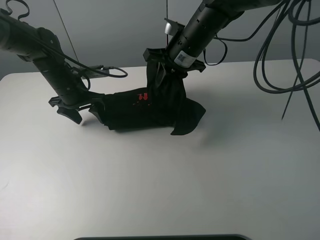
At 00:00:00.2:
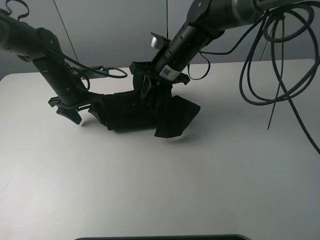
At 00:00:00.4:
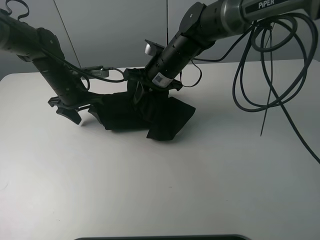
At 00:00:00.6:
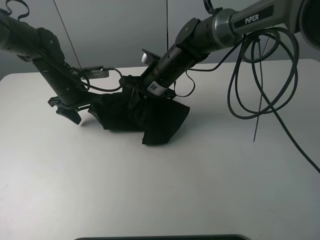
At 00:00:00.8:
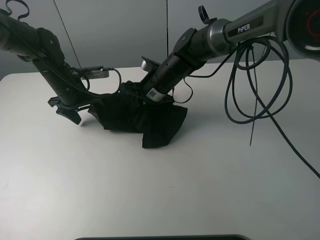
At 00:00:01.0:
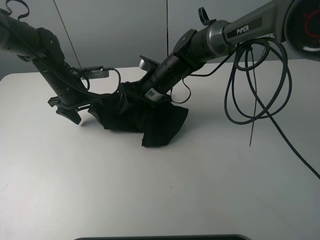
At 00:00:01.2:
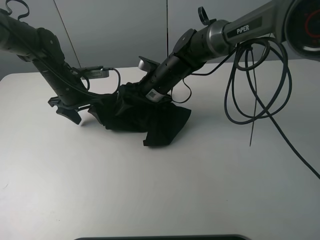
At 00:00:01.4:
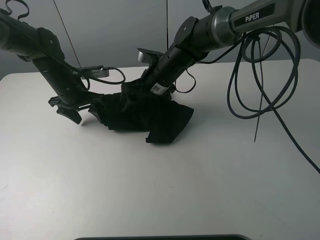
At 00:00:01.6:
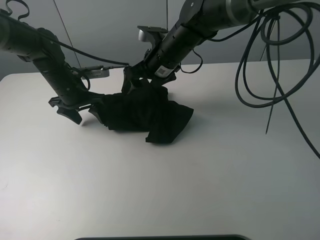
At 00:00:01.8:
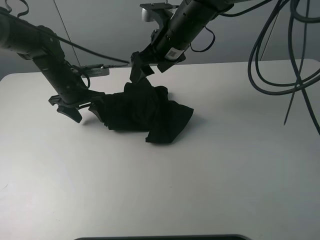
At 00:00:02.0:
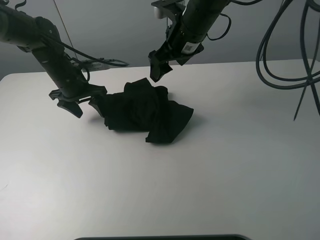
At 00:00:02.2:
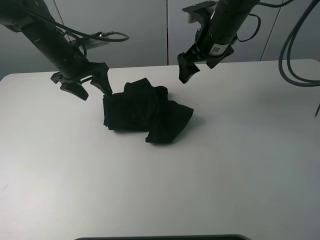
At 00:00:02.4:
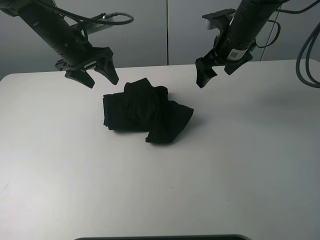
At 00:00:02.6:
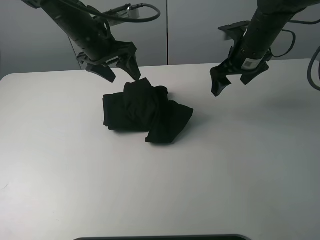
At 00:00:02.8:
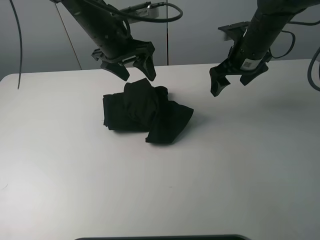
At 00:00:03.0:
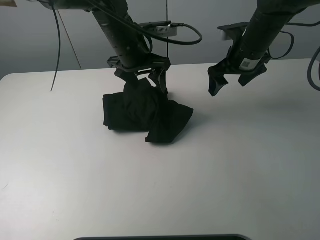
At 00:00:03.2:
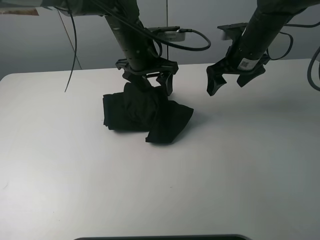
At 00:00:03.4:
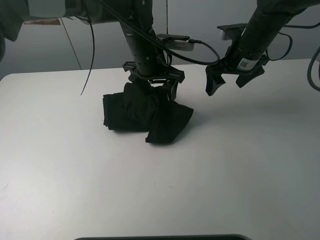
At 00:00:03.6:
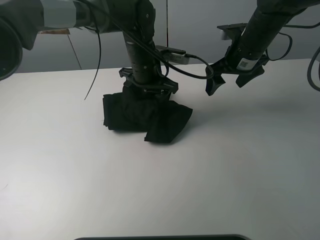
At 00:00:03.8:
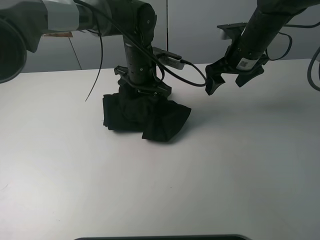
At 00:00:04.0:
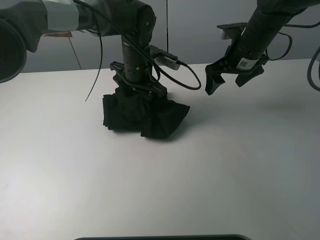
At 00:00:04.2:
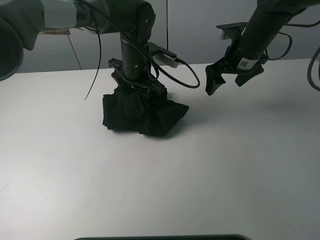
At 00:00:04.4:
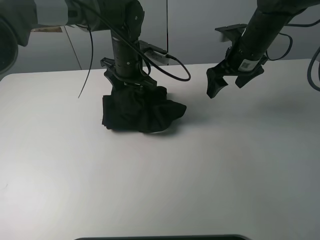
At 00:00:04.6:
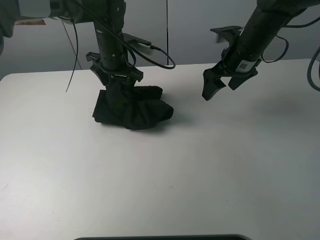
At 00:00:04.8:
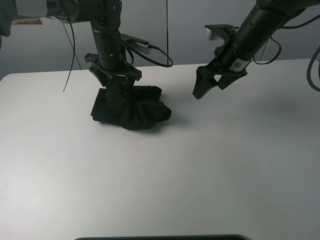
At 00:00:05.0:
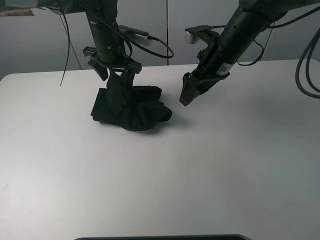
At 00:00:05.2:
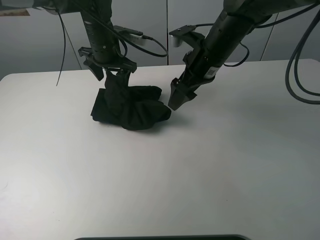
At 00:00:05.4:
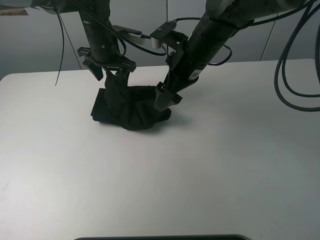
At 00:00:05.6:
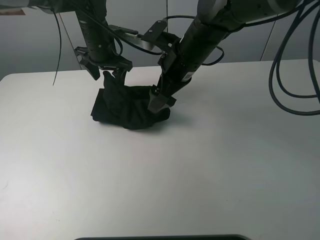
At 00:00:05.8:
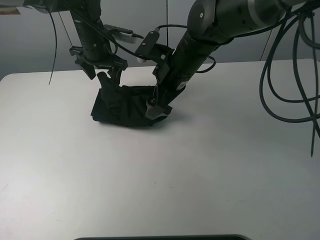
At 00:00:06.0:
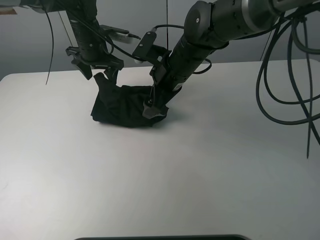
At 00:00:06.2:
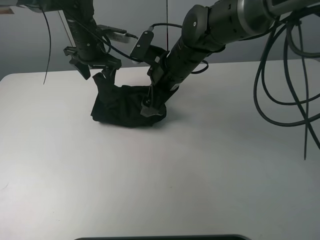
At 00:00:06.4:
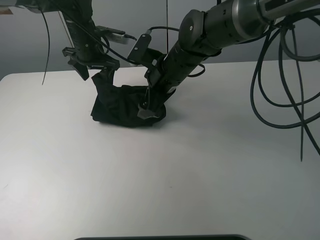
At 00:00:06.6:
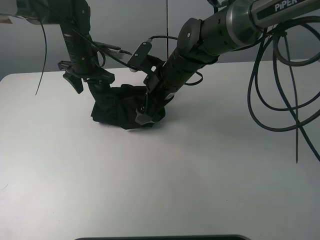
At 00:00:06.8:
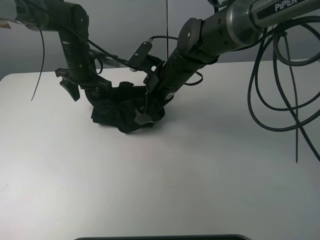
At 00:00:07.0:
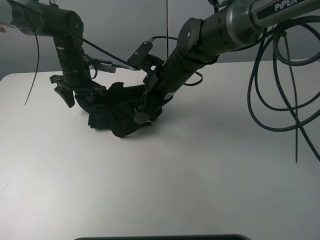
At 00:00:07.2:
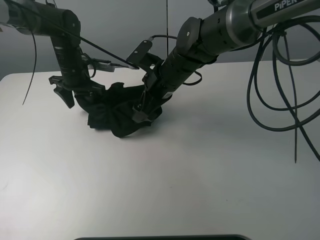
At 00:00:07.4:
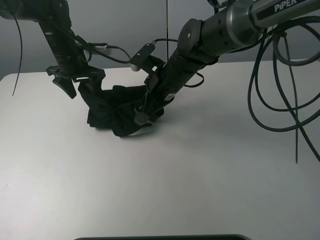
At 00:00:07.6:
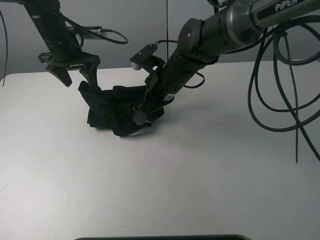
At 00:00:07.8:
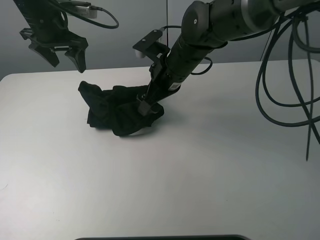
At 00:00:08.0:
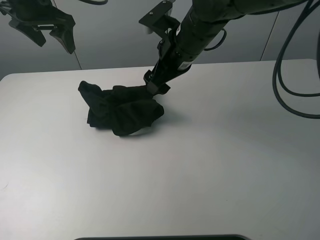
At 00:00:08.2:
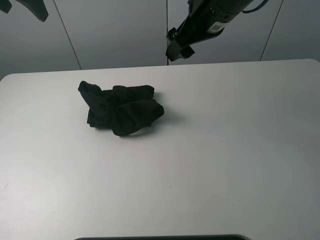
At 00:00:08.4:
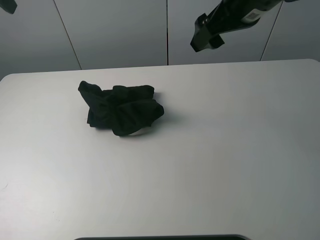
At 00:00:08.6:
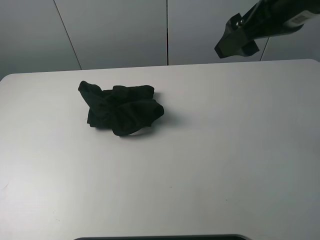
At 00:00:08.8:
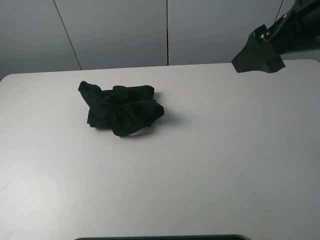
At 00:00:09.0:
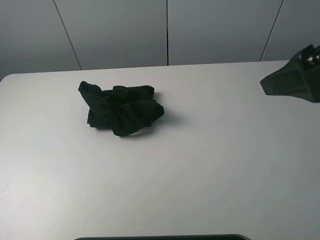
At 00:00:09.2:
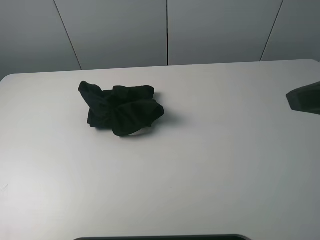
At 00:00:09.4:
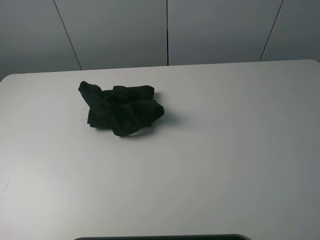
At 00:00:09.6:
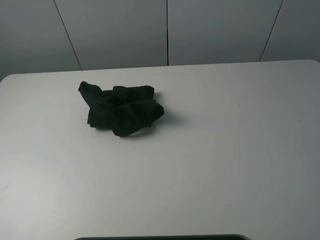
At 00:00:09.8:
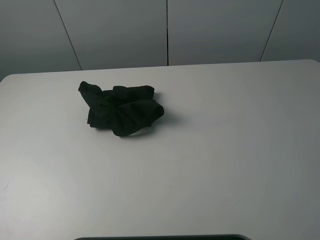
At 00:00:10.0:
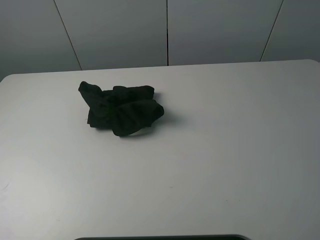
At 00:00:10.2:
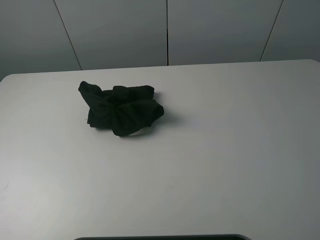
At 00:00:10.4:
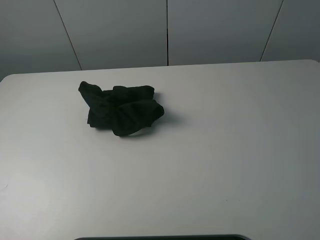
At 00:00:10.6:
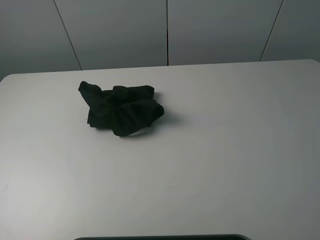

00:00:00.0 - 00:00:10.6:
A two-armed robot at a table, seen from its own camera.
Task of the whole recording: fold the clothes on the table.
Step, 00:00:02.0 - 00:00:07.6: Use the left gripper to tidy up the clothes.
00:00:00.0 - 00:00:01.6: The right gripper goes downward and returns, about 10 cm each way, and opens.
00:00:01.6 - 00:00:03.0: The right gripper goes about 15 cm to the right. The left gripper is displaced to the right and upward by some 20 cm.
00:00:03.0 - 00:00:04.6: The left gripper heads forward, covering approximately 5 cm.
00:00:04.6 - 00:00:06.0: The right gripper is displaced to the left by roughly 15 cm. Meanwhile the left gripper is displaced to the left by about 5 cm.
00:00:06.0 - 00:00:07.6: The left gripper shifts some 5 cm to the left, and travels downward and back again, about 5 cm each way.
00:00:07.6 - 00:00:09.0: The right gripper moves to the right, backward and upward, roughly 35 cm. Meanwhile the left gripper goes roughly 40 cm backward, upward and to the left.
00:00:09.0 - 00:00:10.6: The right gripper goes roughly 15 cm backward and to the right. The left gripper is displaced downward and backward by roughly 10 cm.

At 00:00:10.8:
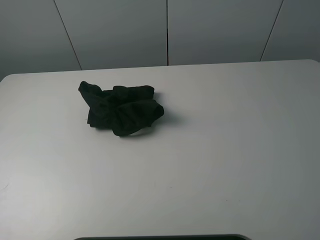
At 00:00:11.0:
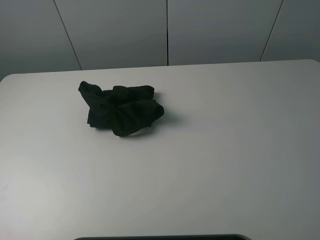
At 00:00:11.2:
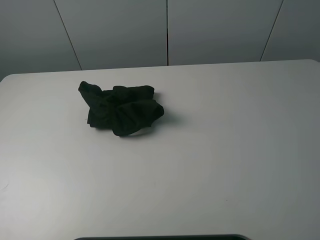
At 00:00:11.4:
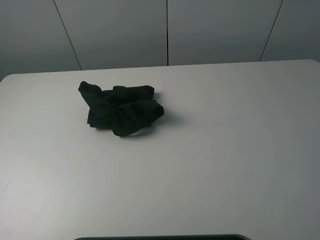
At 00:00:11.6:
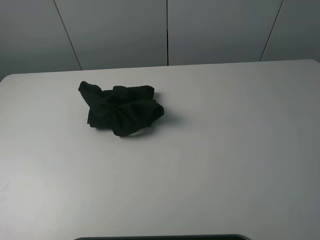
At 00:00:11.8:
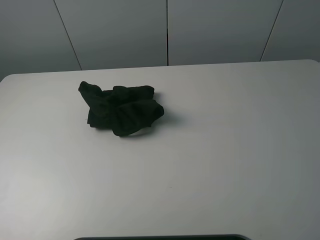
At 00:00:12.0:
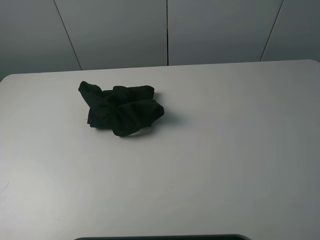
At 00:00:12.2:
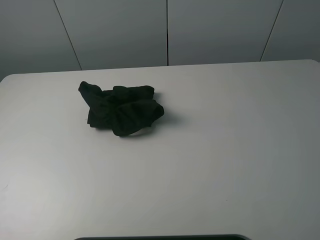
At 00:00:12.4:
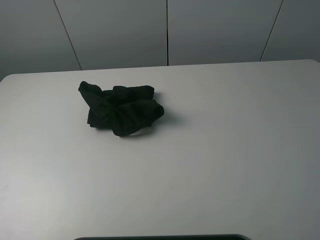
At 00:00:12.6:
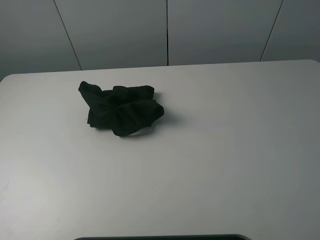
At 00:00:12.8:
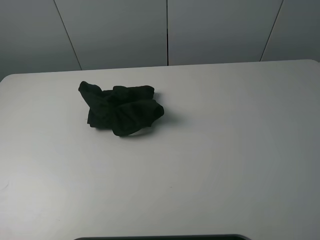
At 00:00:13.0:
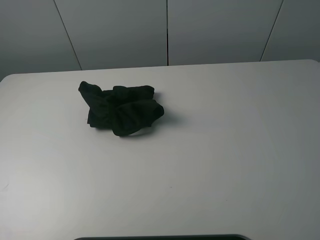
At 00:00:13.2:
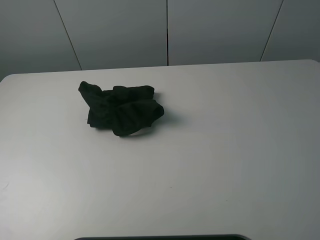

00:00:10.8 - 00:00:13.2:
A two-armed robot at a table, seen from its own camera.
Task of the whole recording: fold the clothes on the table.
00:00:12.0 - 00:00:13.2: The two grippers keep their place.
